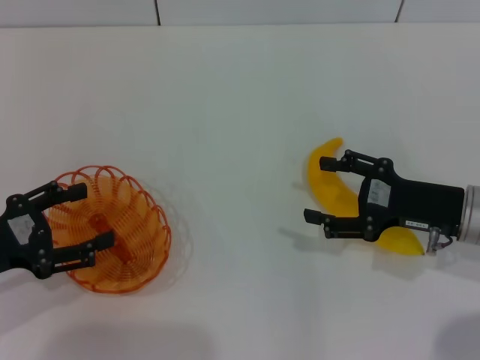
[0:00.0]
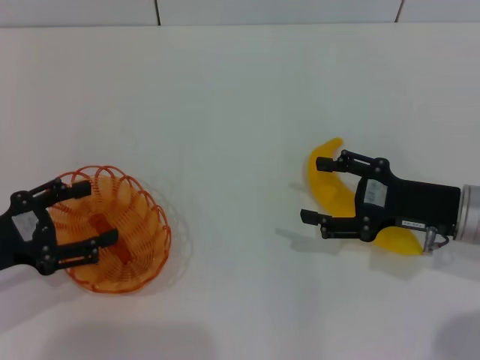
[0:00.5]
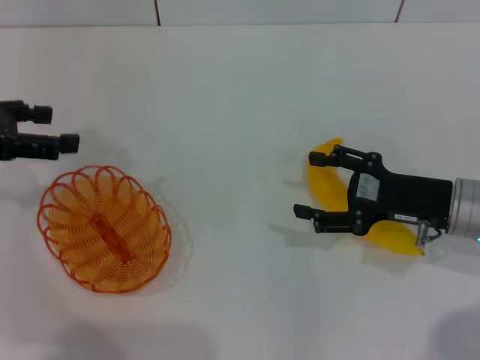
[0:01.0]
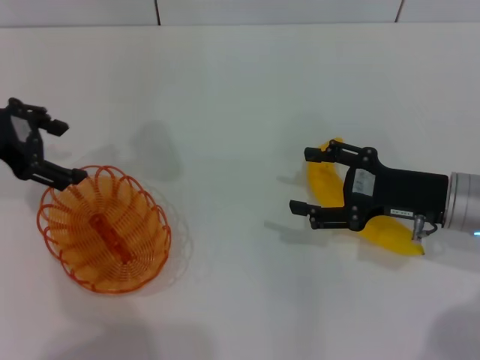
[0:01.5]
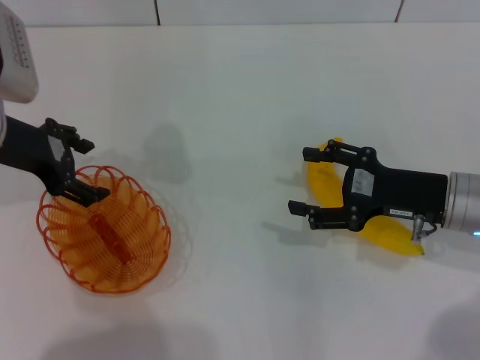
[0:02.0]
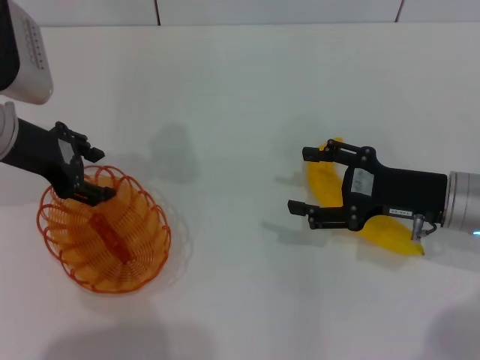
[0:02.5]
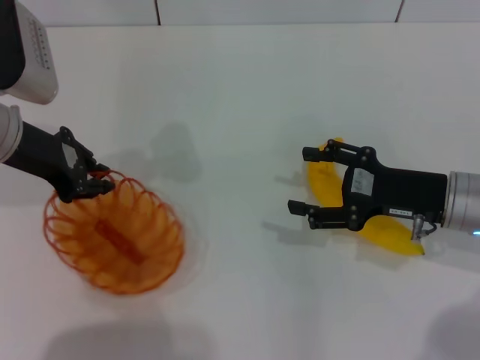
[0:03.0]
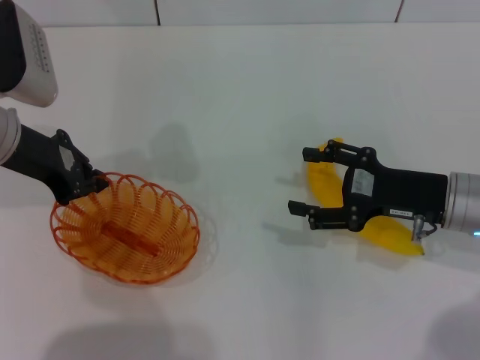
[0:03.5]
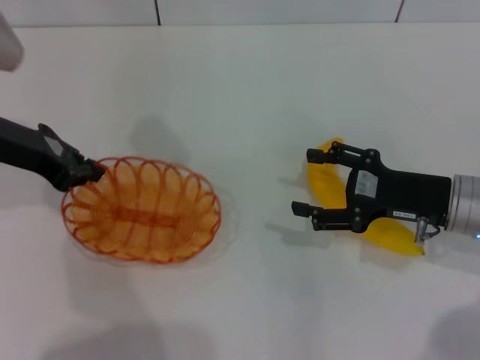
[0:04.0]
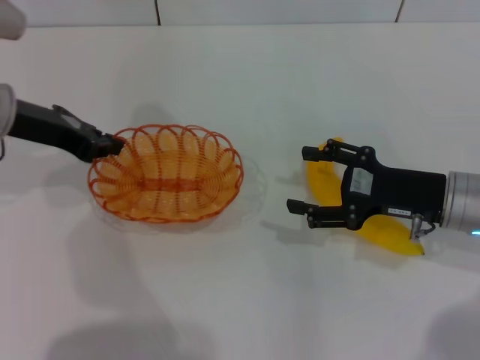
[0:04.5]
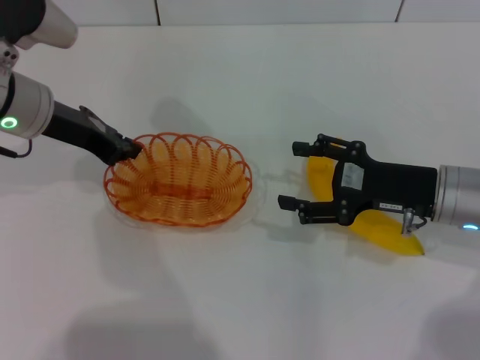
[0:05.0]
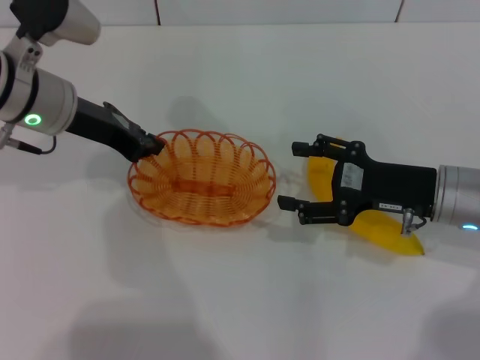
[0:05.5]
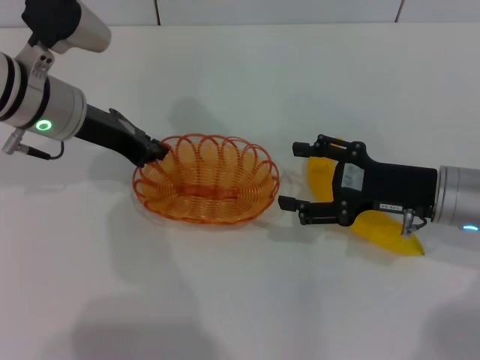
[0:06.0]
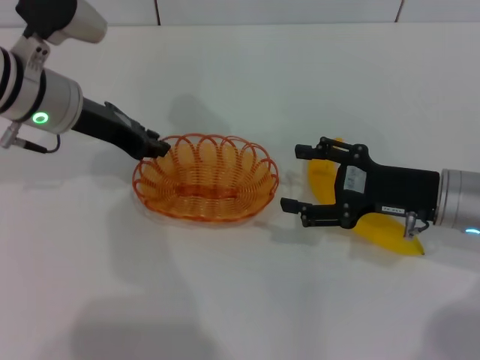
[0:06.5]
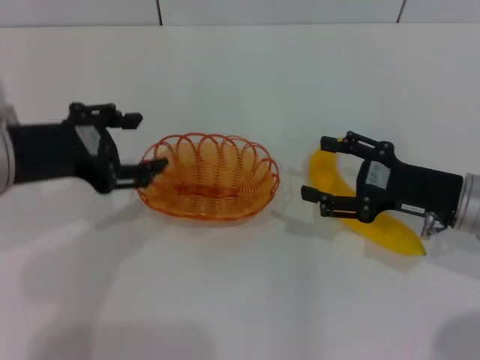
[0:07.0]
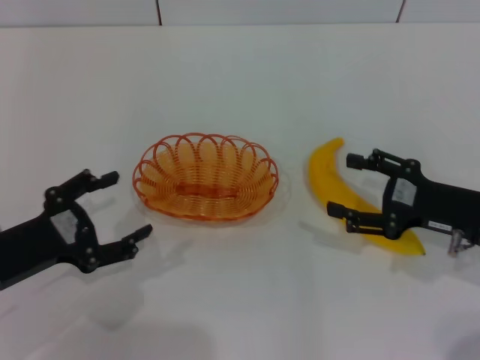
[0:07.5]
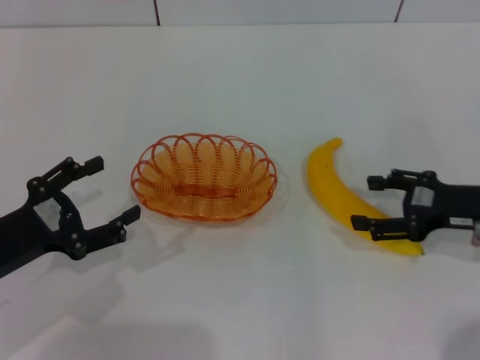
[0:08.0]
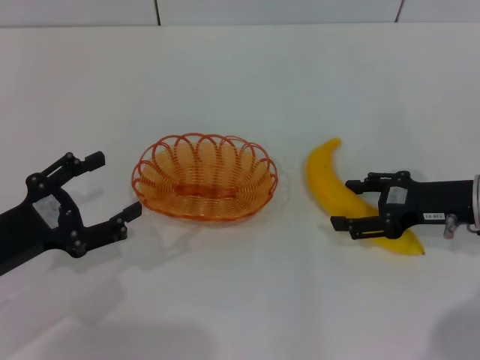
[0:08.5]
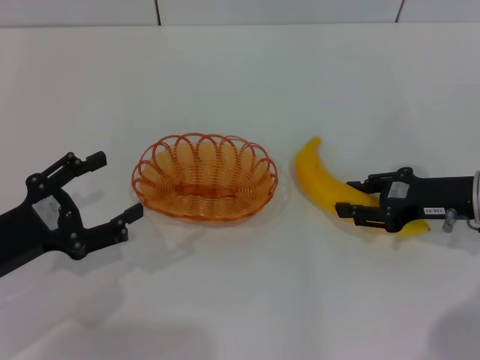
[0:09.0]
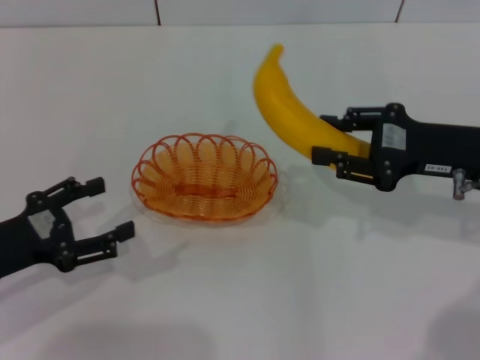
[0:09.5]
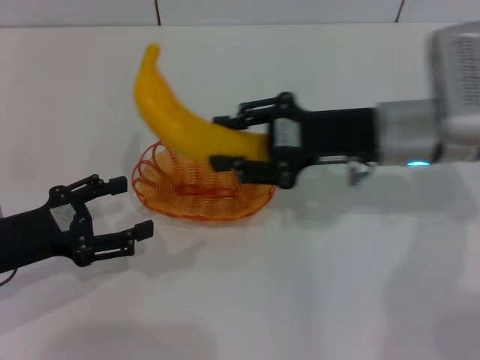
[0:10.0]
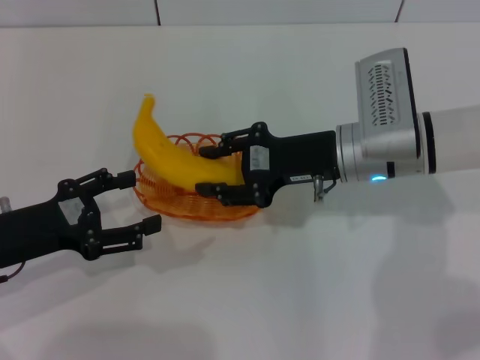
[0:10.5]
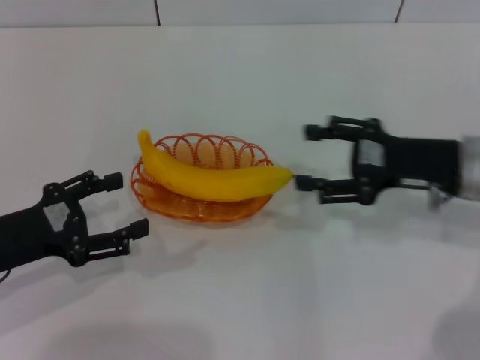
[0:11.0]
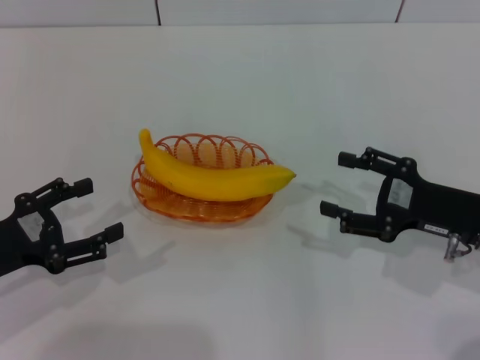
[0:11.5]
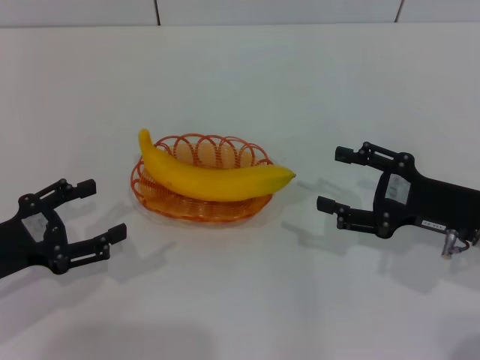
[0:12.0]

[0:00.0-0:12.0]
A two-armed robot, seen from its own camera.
Step, 0.0 to 3.5 s: Pick up the basket with the left gripper.
Step, 4.0 to 6.5 s: Place the basket in the center of view with the left gripper.
Step, 7.0 to 9.0 s: Pick up the banana with the right gripper.
Step, 9.5 to 10.5 s: Place the banana into the basket with the right gripper.
0.0 to 2.0 s: The left gripper is displaced forward, upward and to the right by some 15 cm.
2.0 to 4.0 s: The left gripper closes.
4.0 to 6.0 s: The left gripper goes approximately 5 cm to the right.
6.0 to 8.0 s: The right gripper shifts some 5 cm to the right. Meanwhile the left gripper heads backward, to the left and downward, covering approximately 20 cm, and opens up.
8.0 to 10.0 s: The right gripper goes some 15 cm to the left, forward and upward, and closes its fingers.
10.0 to 12.0 s: The right gripper moves to the right, backward and downward, approximately 15 cm, and opens its fingers.

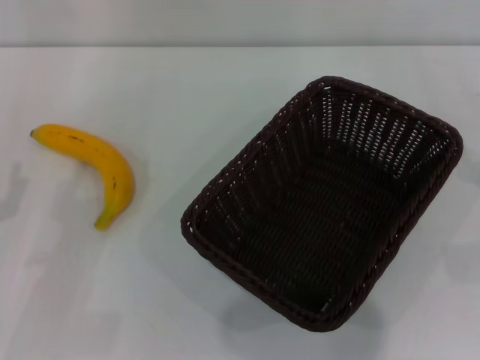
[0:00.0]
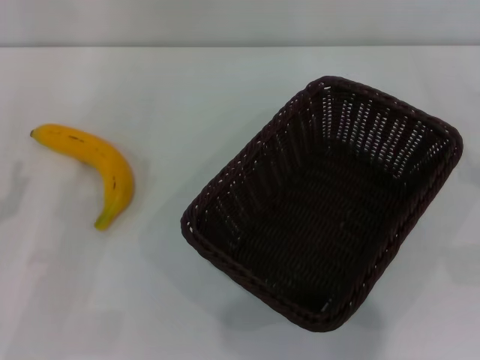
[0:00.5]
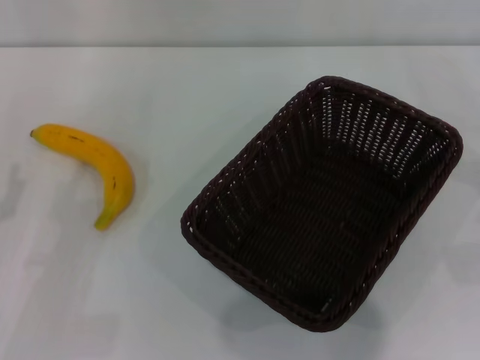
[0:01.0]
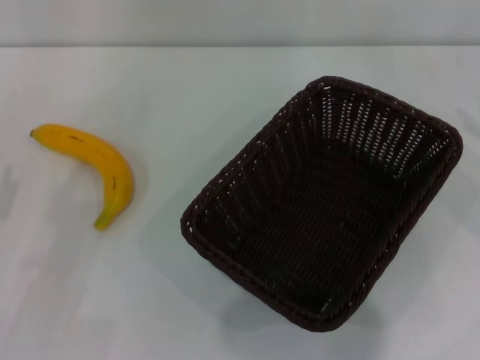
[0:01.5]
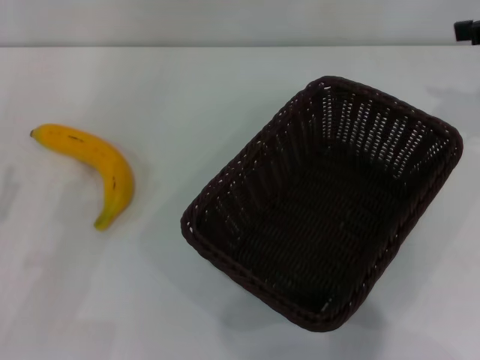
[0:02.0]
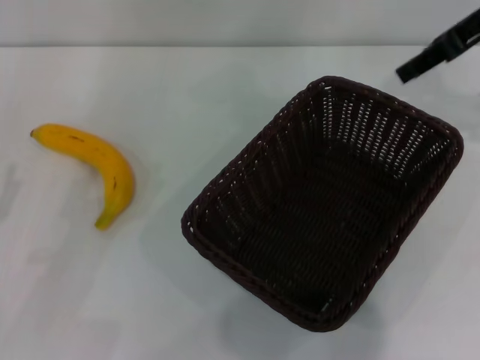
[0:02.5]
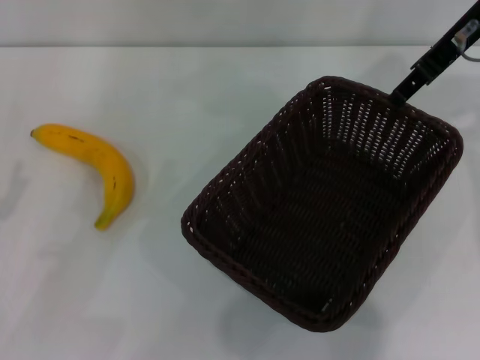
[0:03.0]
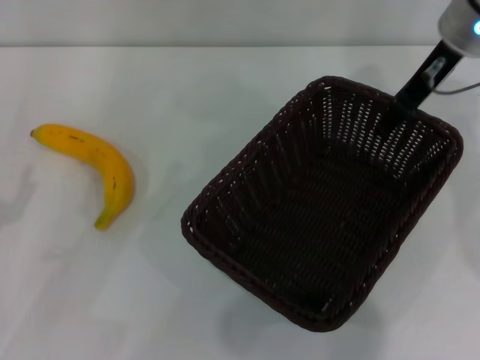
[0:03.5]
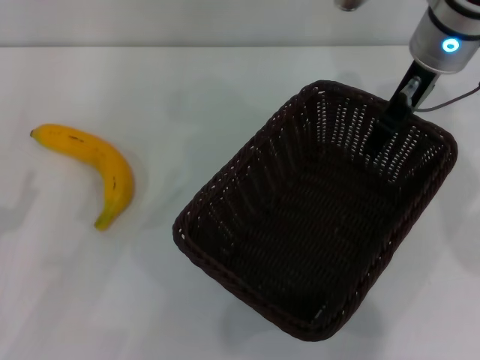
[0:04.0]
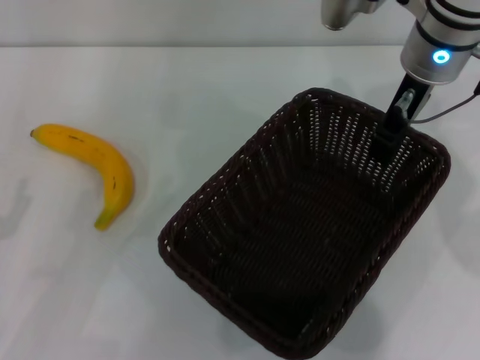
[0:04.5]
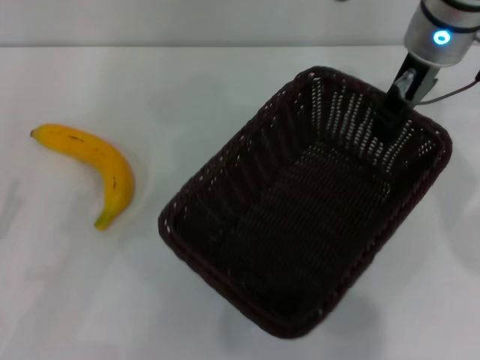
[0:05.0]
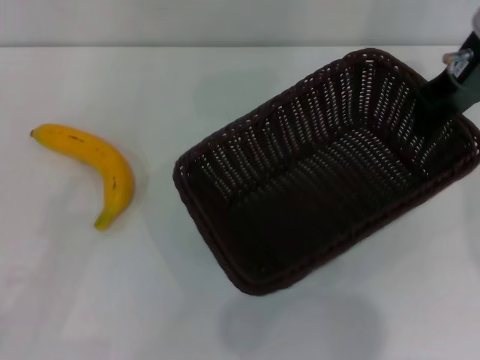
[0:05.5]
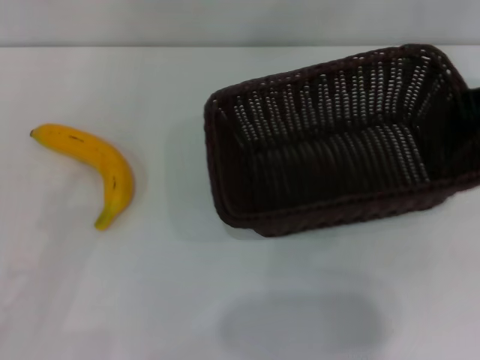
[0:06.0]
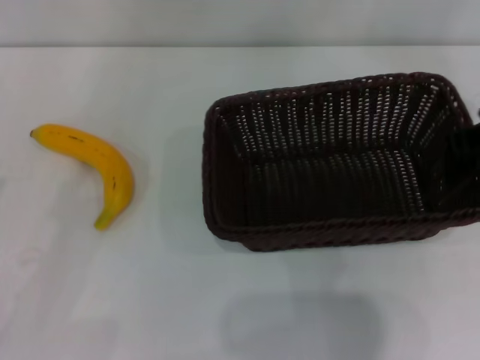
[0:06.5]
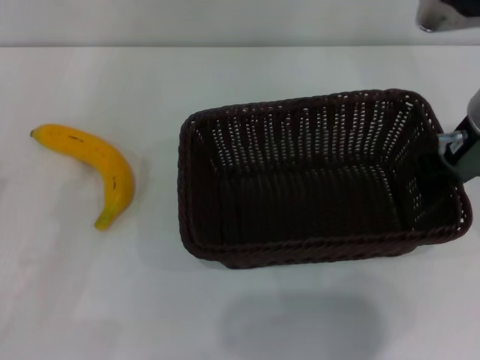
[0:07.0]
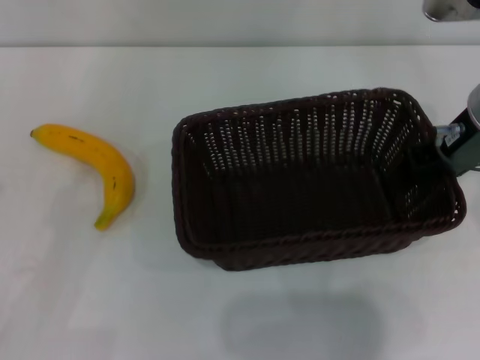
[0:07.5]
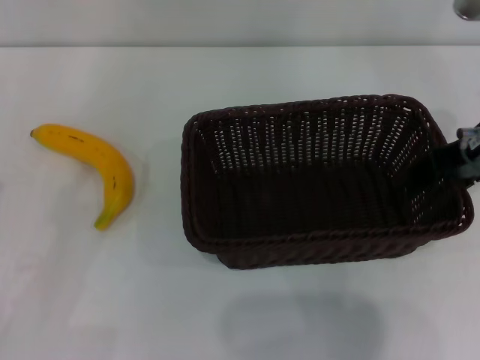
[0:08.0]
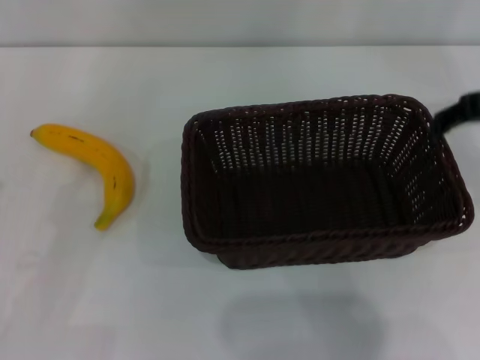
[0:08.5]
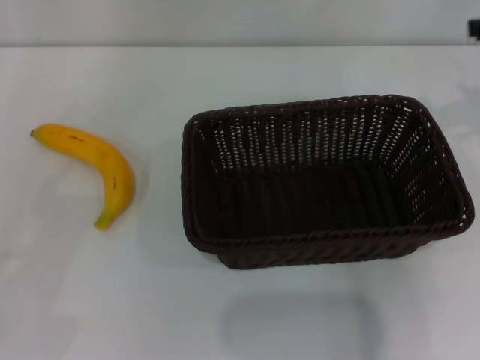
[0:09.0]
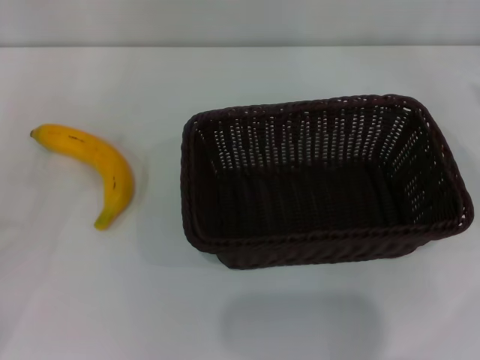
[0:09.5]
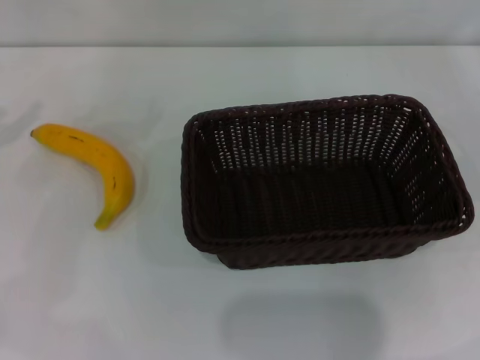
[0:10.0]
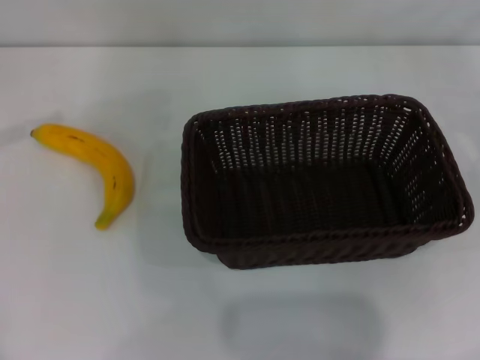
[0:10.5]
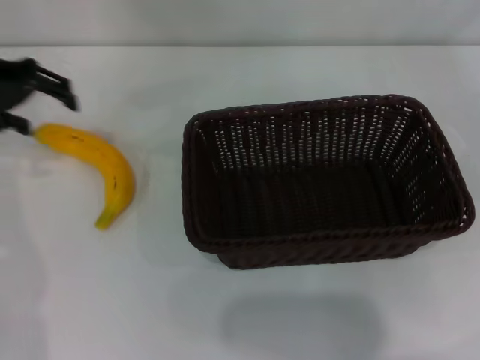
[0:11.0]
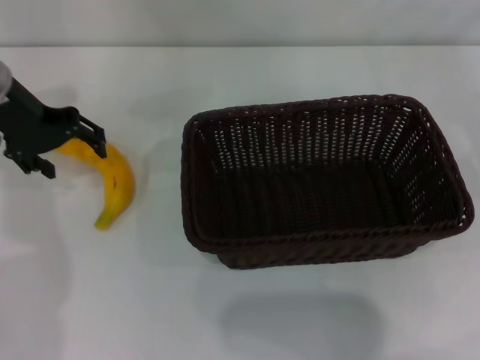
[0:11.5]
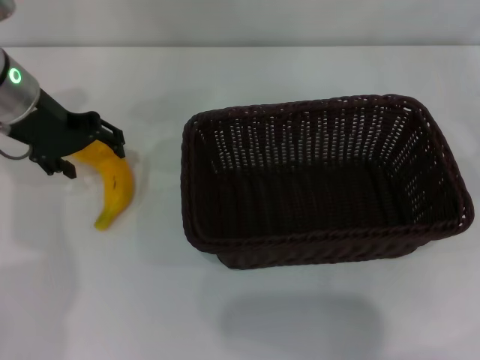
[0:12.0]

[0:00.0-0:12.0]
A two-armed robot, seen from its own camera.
Step, 0.0 to 5.0 s: Pick up the dark basket with the right gripper.
Step, 5.5 to 8.5 s: Place the dark basket in the center of view with the right gripper.
2.0 to 4.0 s: The right gripper heads to the left, covering some 15 cm.
4.0 to 6.0 s: The right gripper shifts about 10 cm to the right, and closes.
6.0 to 8.0 s: The right gripper moves backward and to the left, approximately 10 cm, and opens up.
8.0 to 10.0 s: The right gripper shifts roughly 25 cm to the right.
10.0 to 12.0 s: The left gripper shifts approximately 20 cm to the right and forward.

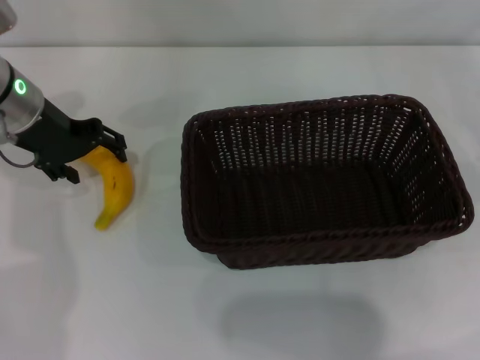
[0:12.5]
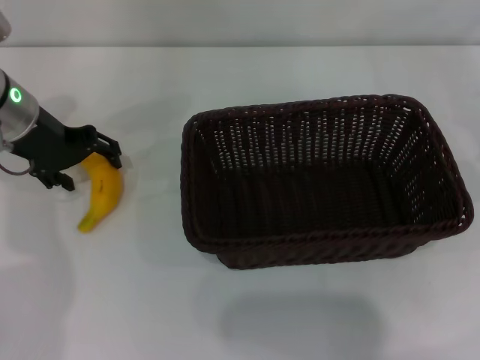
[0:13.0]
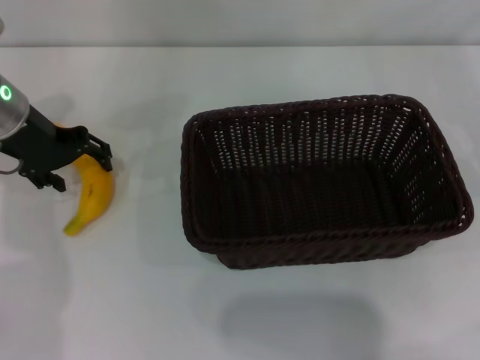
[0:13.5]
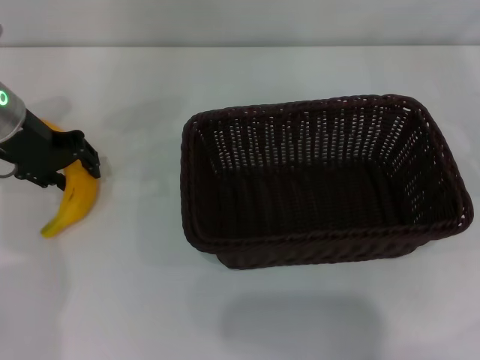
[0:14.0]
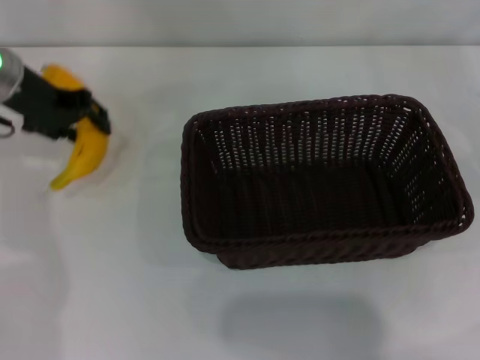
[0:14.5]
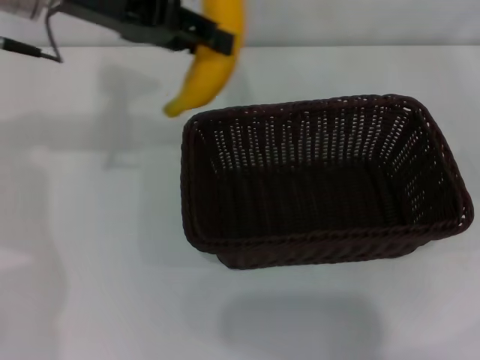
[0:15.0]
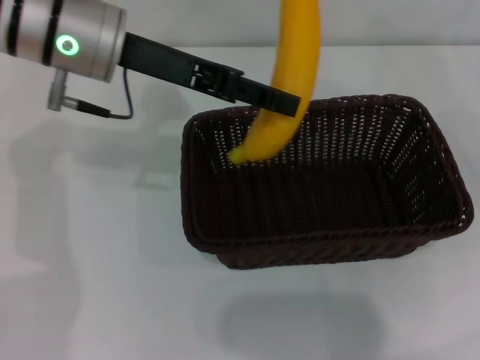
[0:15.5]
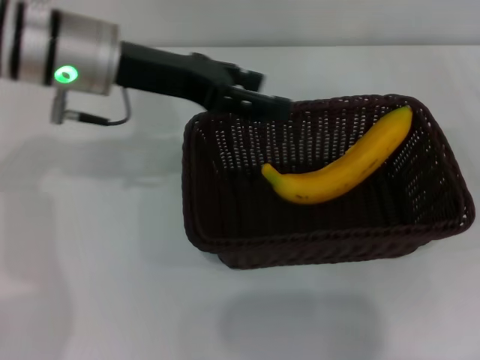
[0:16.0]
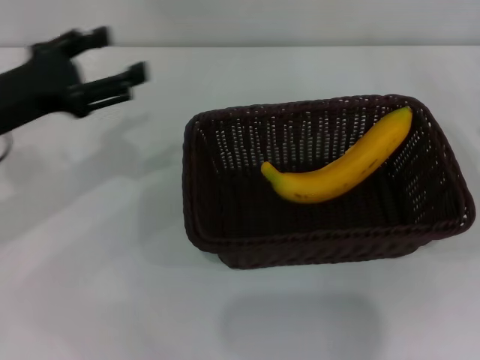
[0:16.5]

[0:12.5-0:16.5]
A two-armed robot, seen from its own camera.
Step, 12.5 to 14.5 s: Pick up the banana with the left gripper.
Step, 15.0 to 16.0 s: Place the banana into the dark basket with the left gripper.
12.5 to 14.5 s: The left gripper closes its fingers.
14.5 to 16.5 s: The left gripper moves backward, approximately 10 cm, moves some 10 cm to the right and comes back, and opens. The right gripper shifts some 5 cm backward.
